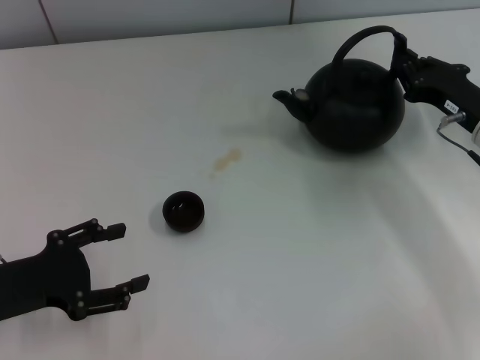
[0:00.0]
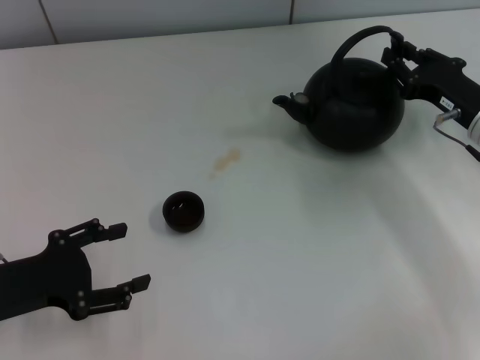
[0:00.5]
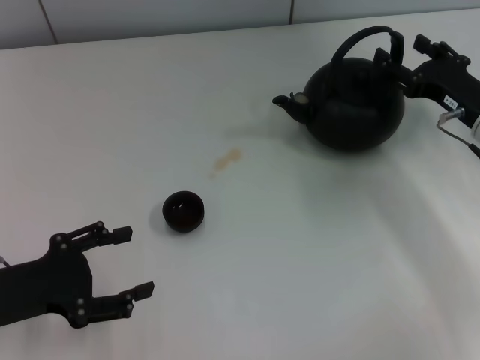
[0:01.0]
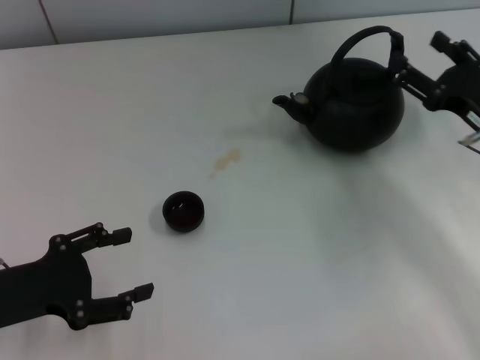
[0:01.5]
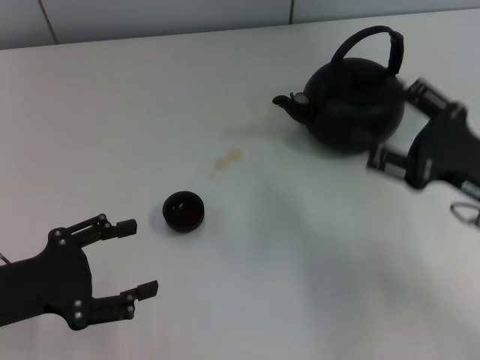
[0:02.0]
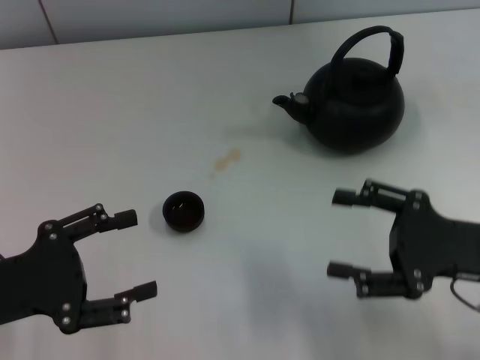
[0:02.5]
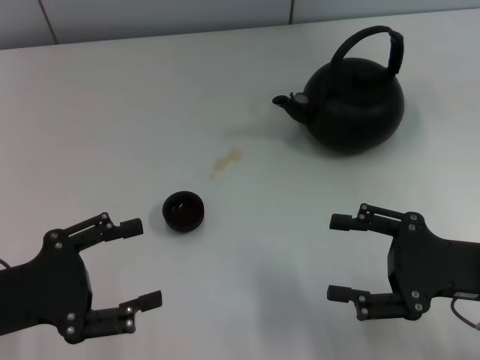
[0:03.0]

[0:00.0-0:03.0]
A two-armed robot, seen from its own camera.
Task of the whole recording: Grasp the handle of the teapot with one hand and pour tea into the teacup.
0:00.0 to 0:01.5: The right gripper opens up.
0:01.5 to 0:03.0: The right gripper travels backward by roughly 10 cm.

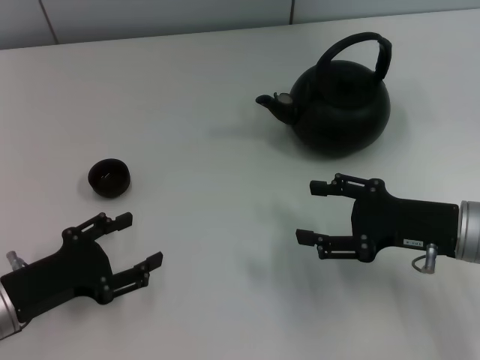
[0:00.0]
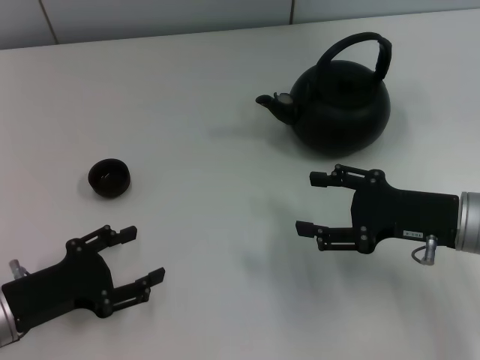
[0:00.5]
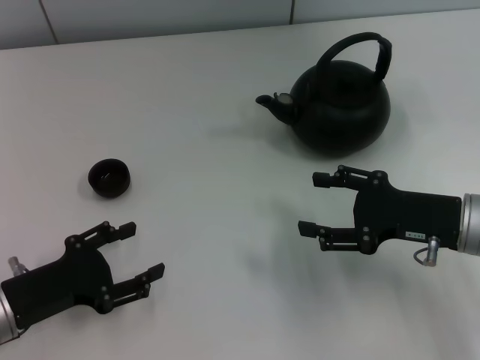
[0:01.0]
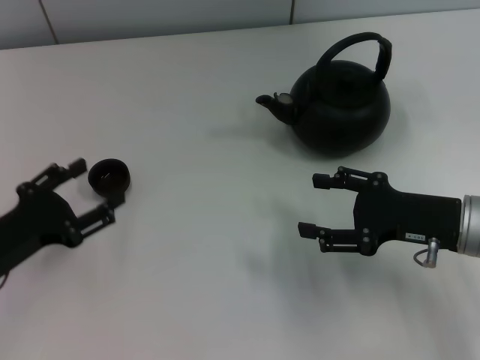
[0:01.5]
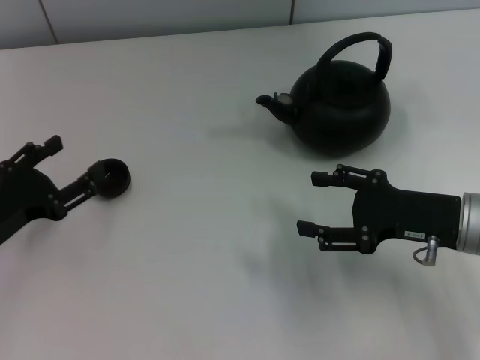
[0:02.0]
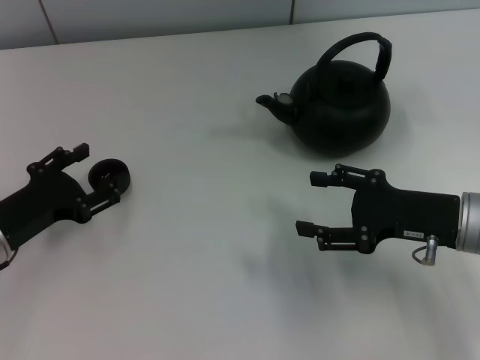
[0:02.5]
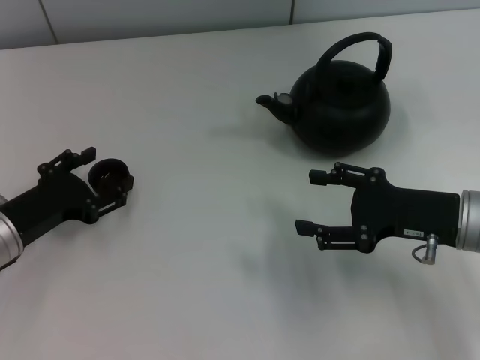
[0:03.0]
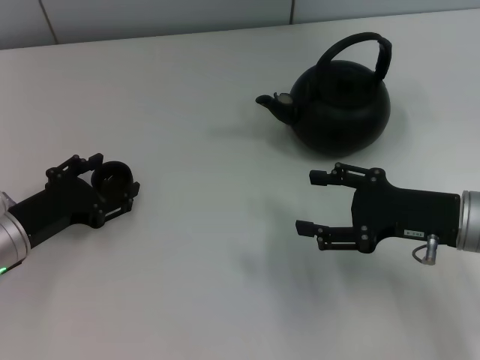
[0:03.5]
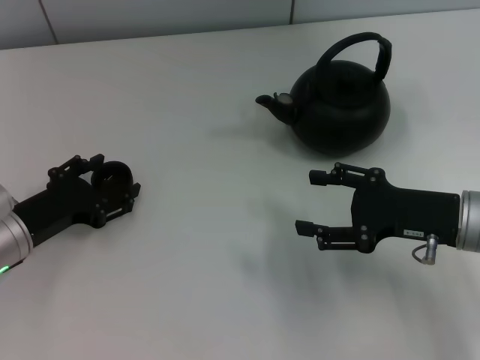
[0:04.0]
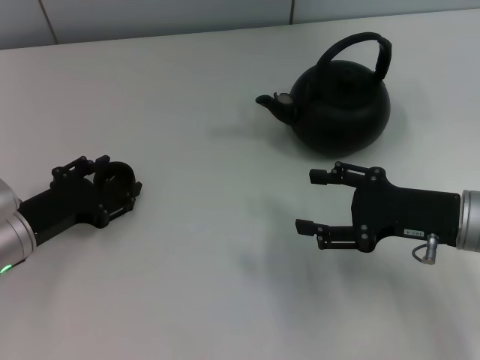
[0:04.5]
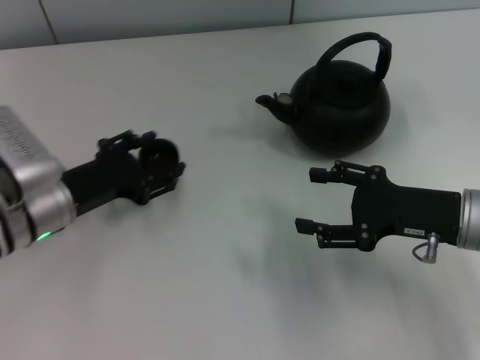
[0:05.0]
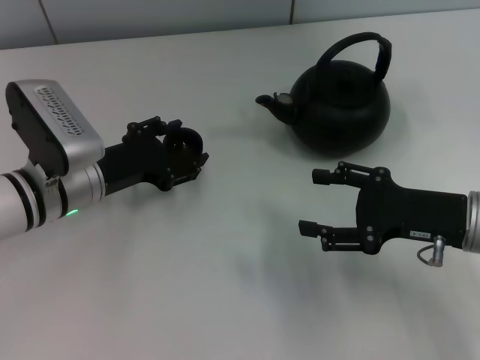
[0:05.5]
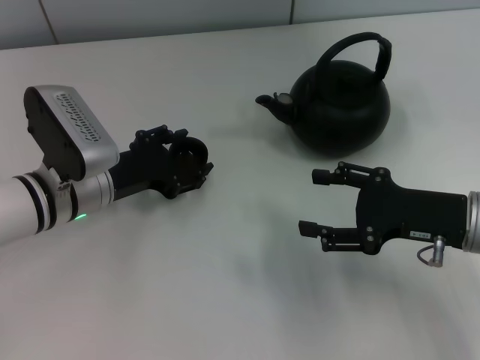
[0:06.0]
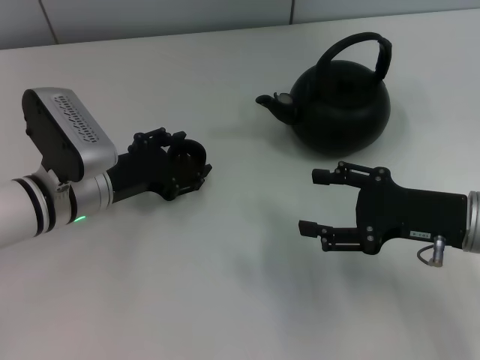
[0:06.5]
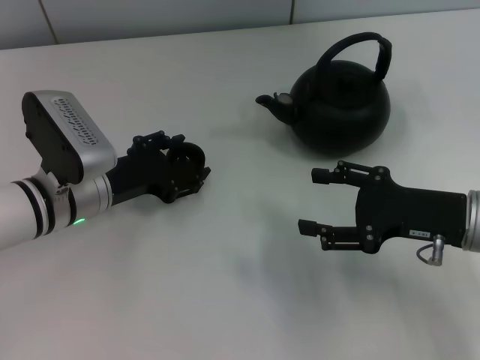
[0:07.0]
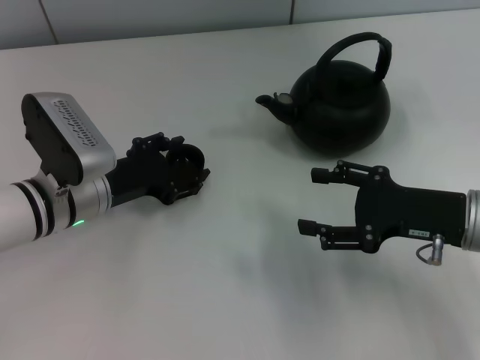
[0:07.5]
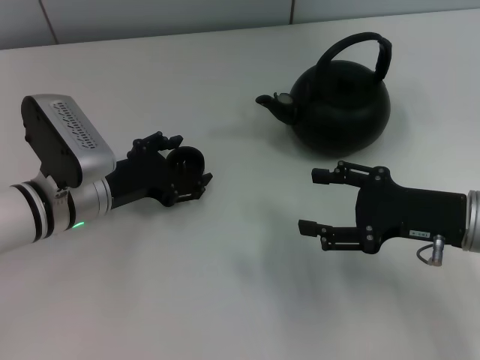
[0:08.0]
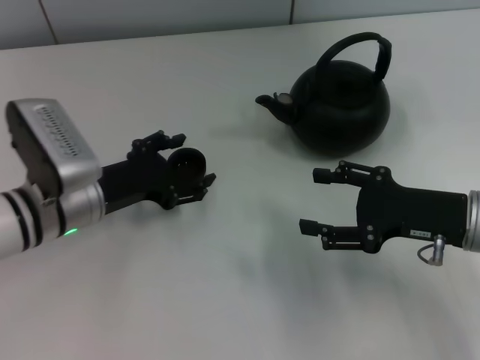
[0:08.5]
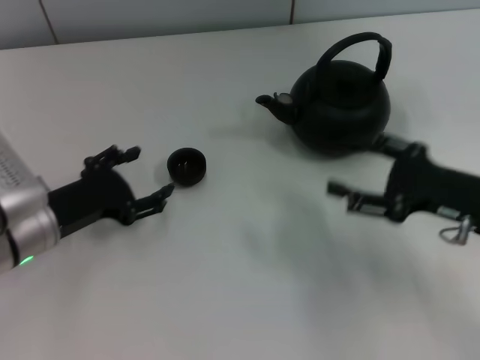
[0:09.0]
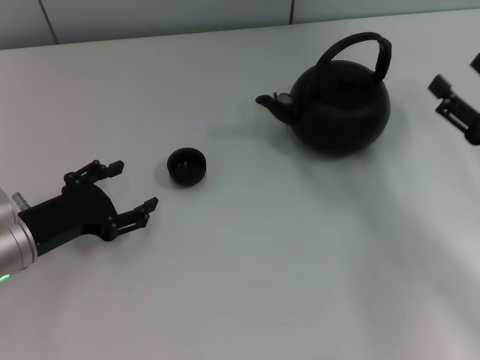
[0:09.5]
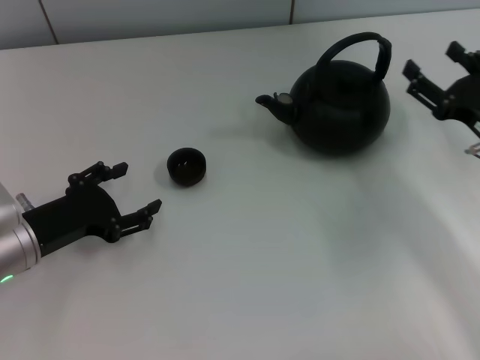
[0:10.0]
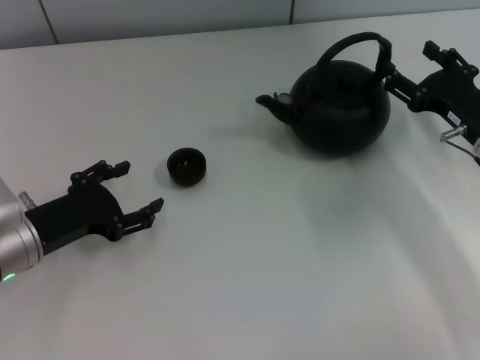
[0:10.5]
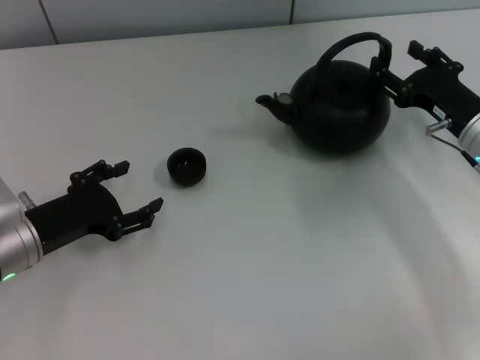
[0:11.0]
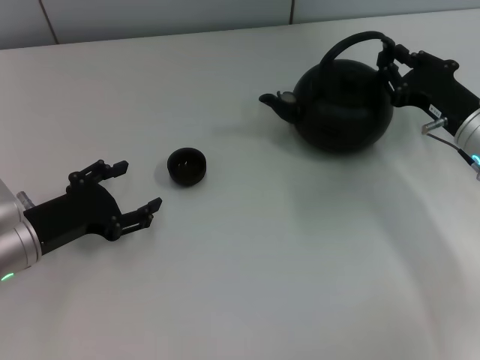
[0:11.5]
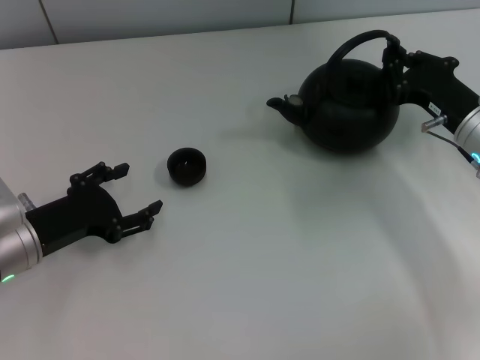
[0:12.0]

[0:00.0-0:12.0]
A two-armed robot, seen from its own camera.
Task of the whole recording: Grasp the handle of the teapot with one hand and pour tea into the teacup.
Step, 0:00.0 to 0:04.5: Pick up the teacup with the left gripper.
Step, 0:05.0 to 0:08.5: Place the teacup in the center of view with the left gripper.
0:00.0 to 0:02.0: The grippers move only a little.
0:02.0 to 0:04.0: There are only small adjustments of the grippers.
0:04.0 to 0:06.0: The left gripper heads to the right, covering about 10 cm, and closes its fingers.
0:06.0 to 0:08.0: Both grippers stay put.
0:08.0 to 0:10.0: The left gripper heads to the left and backward, covering about 10 cm, and opens up; the right gripper moves to the right, roughly 5 cm.
0:10.0 to 0:12.0: The right gripper shifts by roughly 5 cm, and closes its fingers.

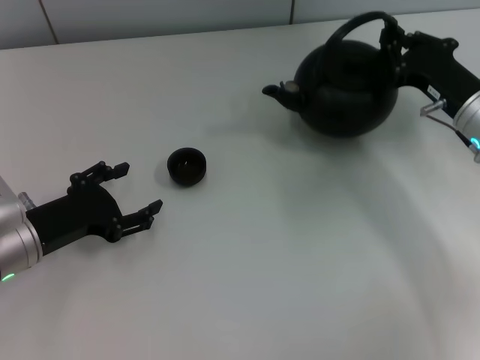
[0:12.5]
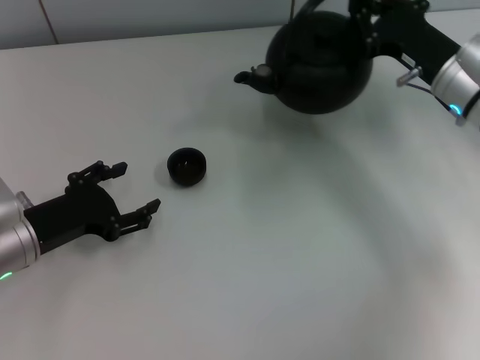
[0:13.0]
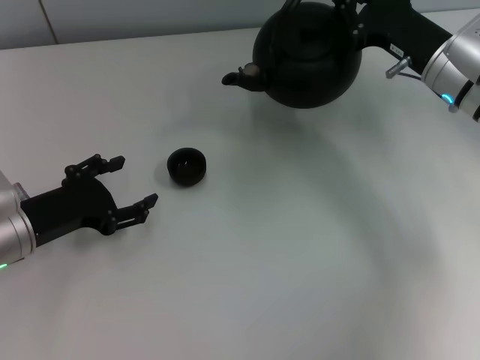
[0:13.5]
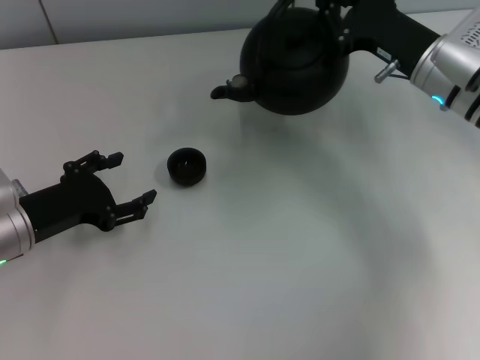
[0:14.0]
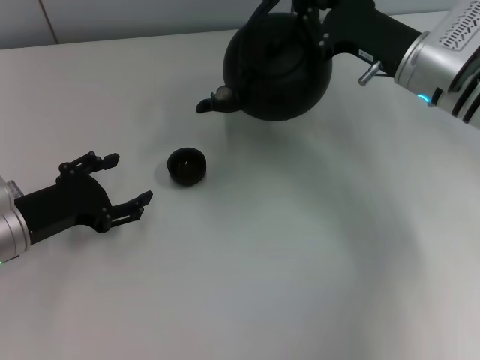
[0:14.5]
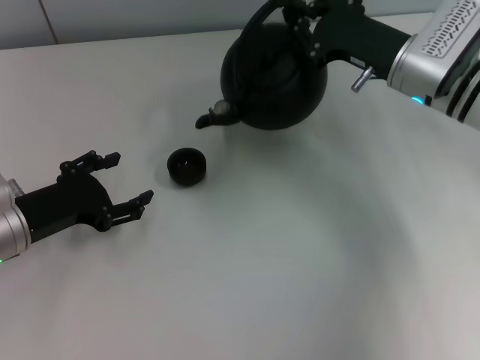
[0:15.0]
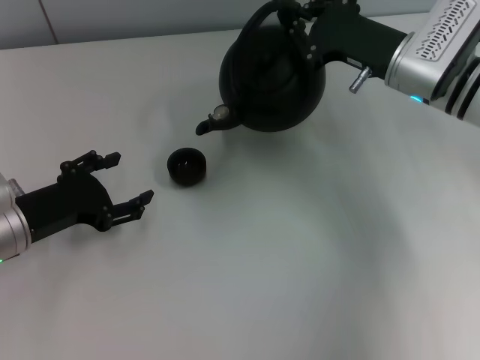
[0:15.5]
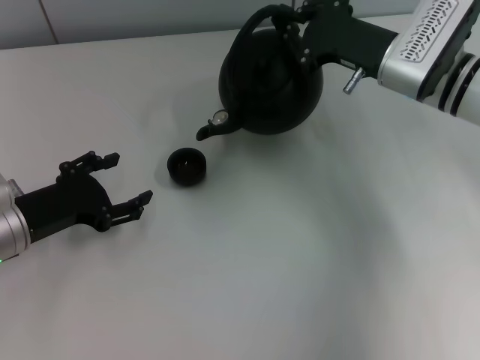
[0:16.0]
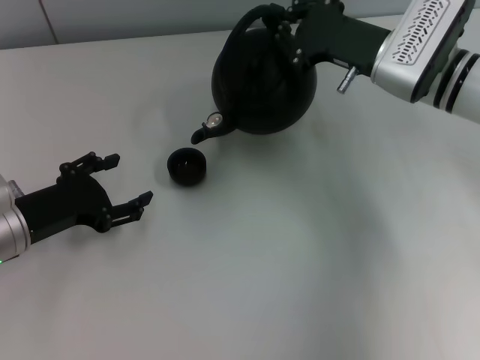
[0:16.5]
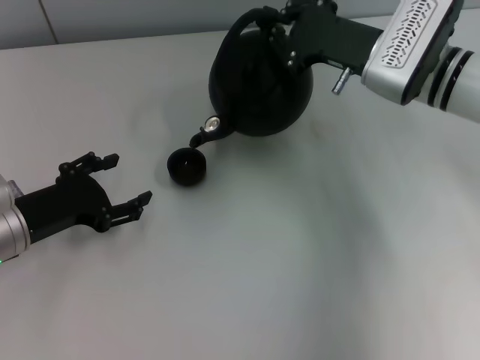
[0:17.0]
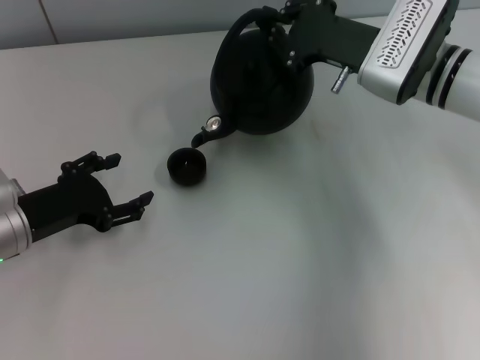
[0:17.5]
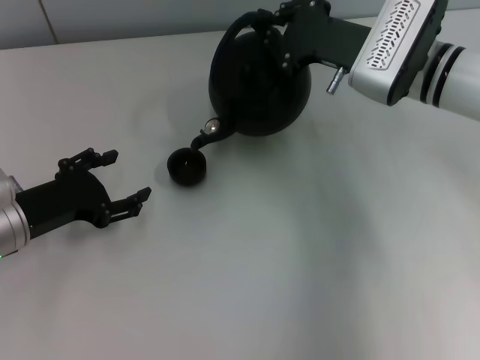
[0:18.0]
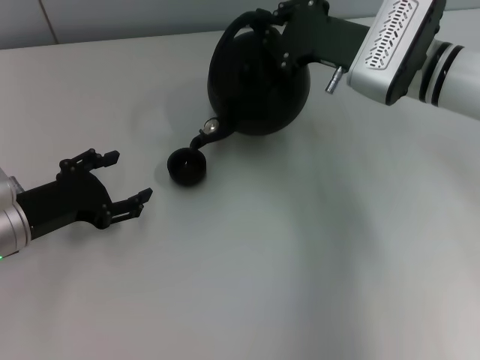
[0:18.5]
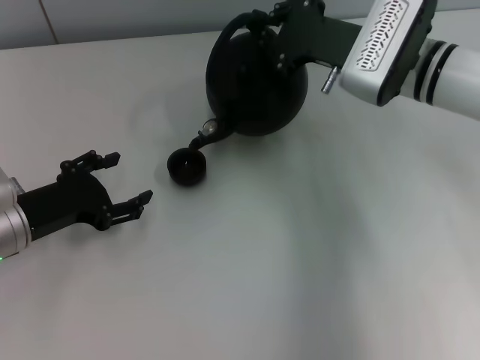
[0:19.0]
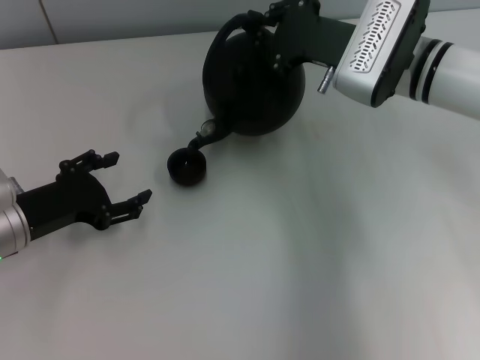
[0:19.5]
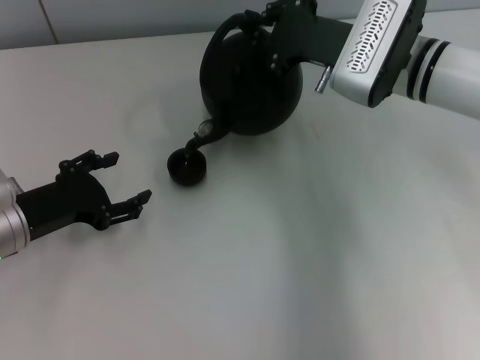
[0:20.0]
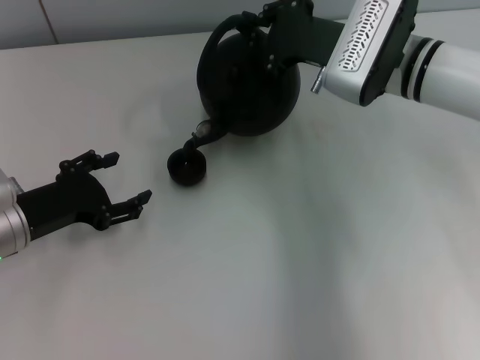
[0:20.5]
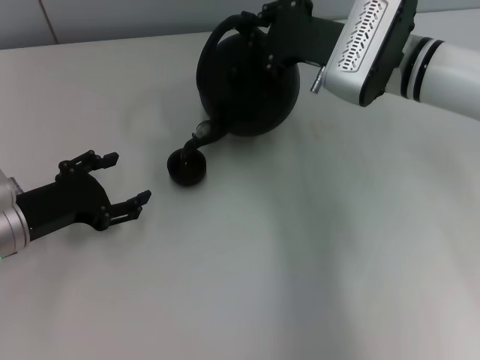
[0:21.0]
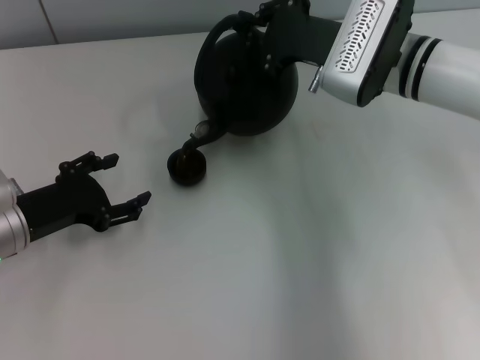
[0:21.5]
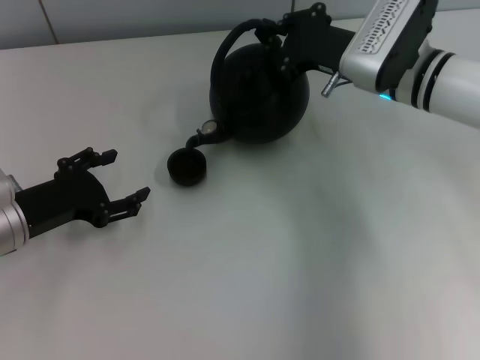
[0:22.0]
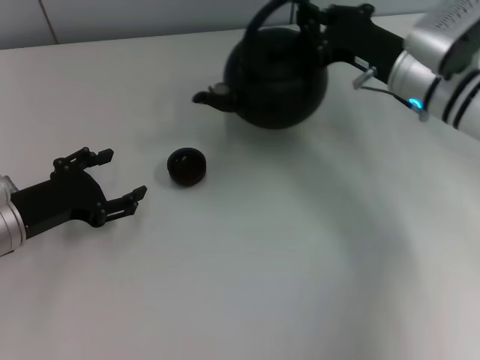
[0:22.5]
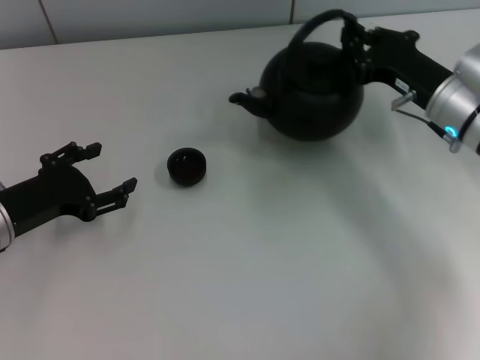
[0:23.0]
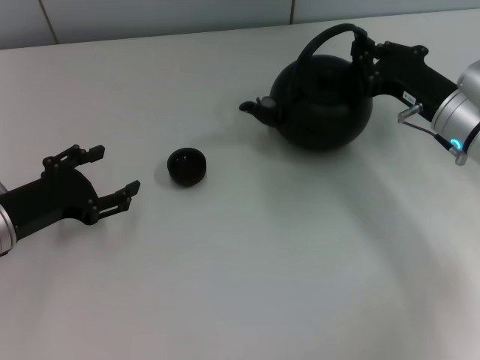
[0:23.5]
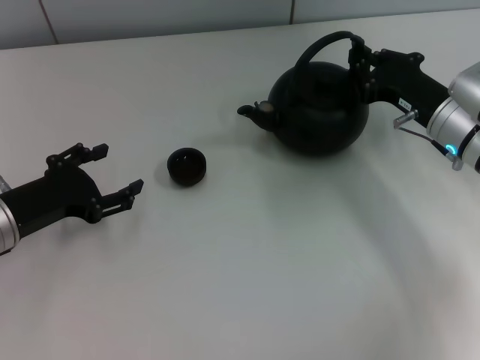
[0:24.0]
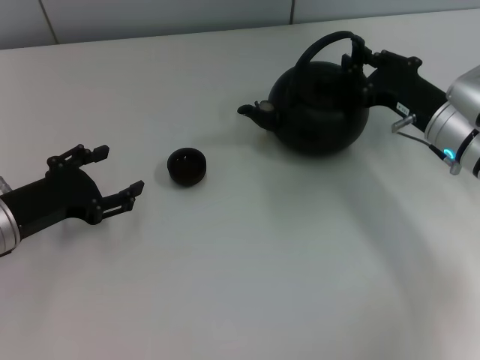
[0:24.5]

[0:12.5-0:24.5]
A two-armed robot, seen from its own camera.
Task of the whole recording: Grasp the handle of the teapot with one hand and pour tea into the teacup.
0:12.5 to 0:14.5: The right gripper shifts about 5 cm to the left.
0:14.5 to 0:18.5: The grippers move only a little.
0:18.5 to 0:20.5: The grippers make only small movements.
0:20.5 to 0:22.5: The right gripper travels to the right by about 5 cm.
0:22.5 to 0:24.5: The right gripper changes place by some 5 cm.
